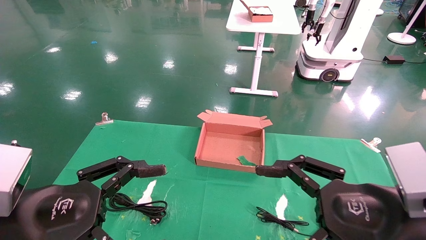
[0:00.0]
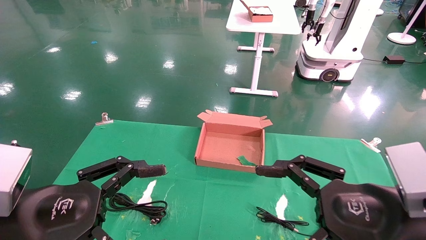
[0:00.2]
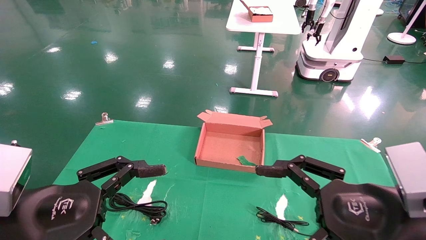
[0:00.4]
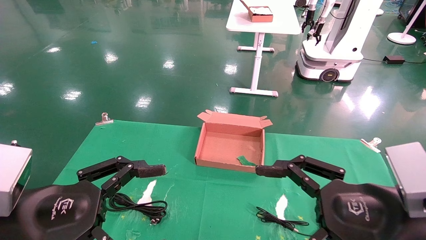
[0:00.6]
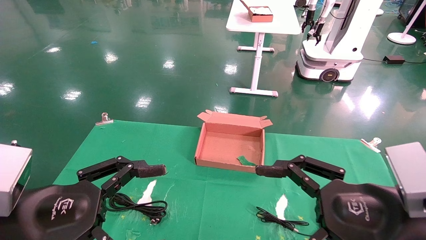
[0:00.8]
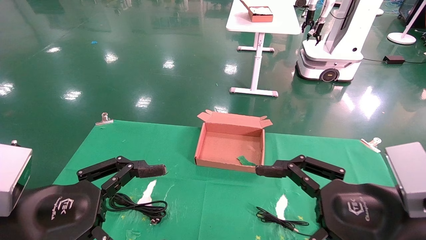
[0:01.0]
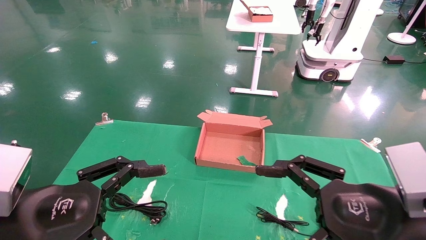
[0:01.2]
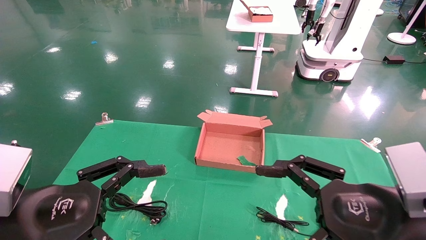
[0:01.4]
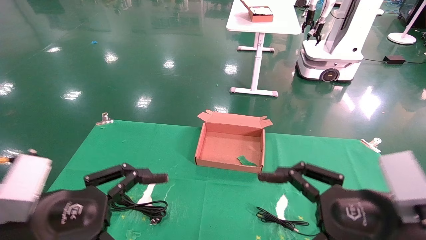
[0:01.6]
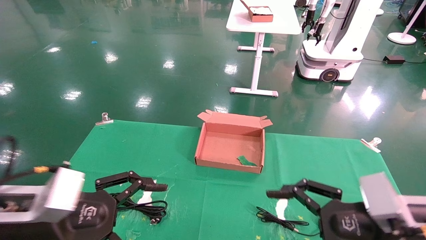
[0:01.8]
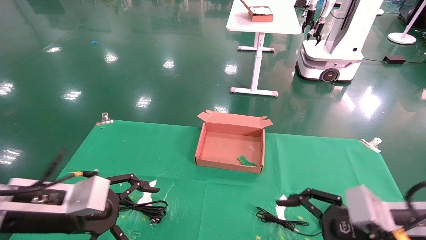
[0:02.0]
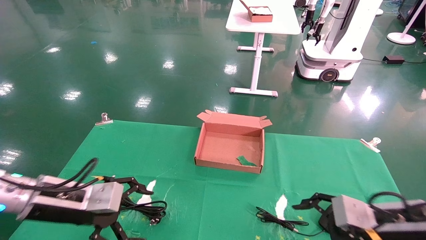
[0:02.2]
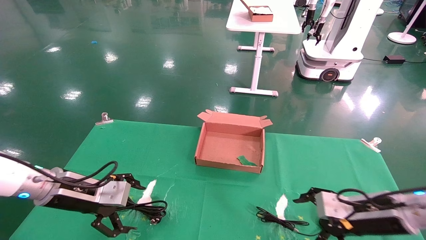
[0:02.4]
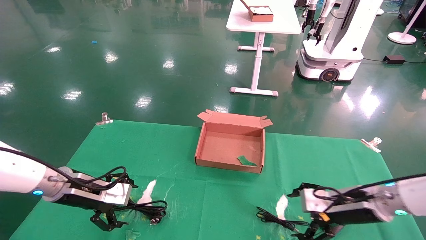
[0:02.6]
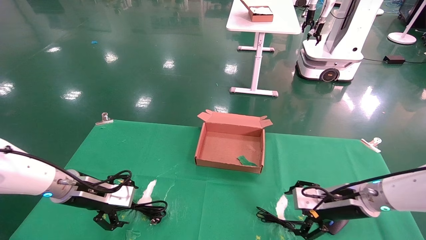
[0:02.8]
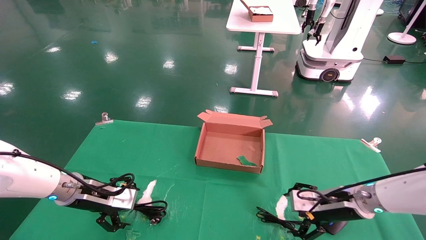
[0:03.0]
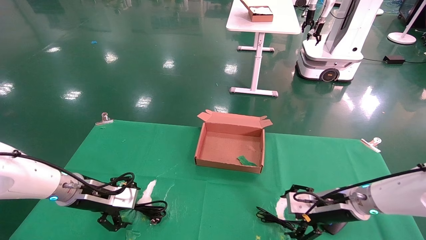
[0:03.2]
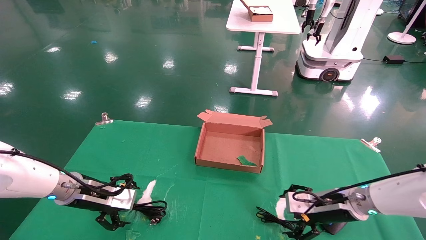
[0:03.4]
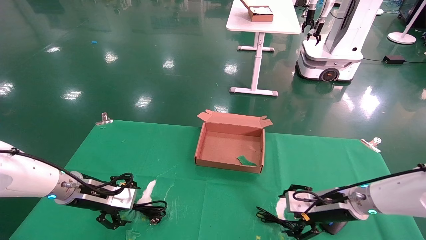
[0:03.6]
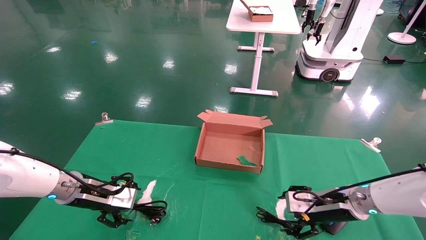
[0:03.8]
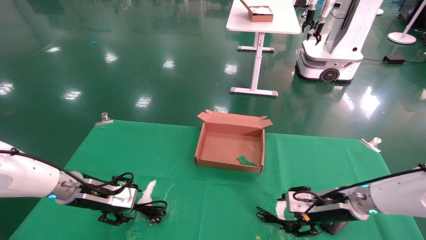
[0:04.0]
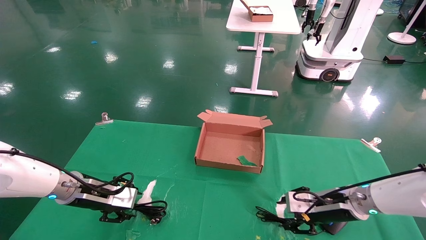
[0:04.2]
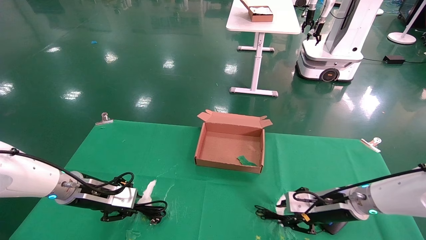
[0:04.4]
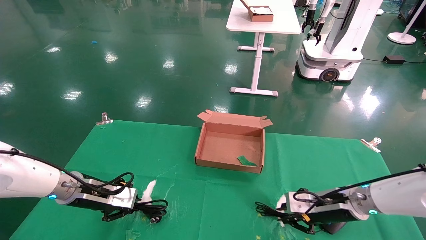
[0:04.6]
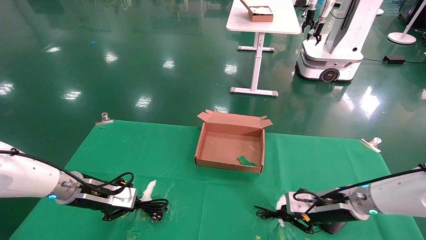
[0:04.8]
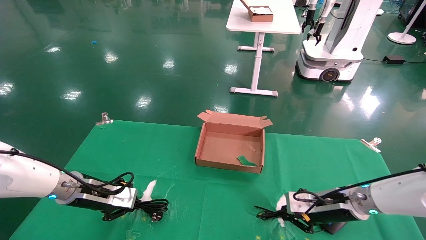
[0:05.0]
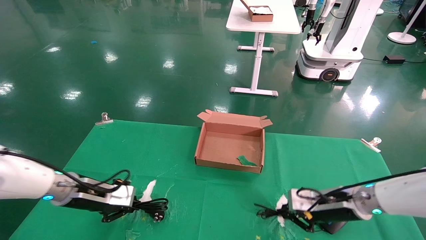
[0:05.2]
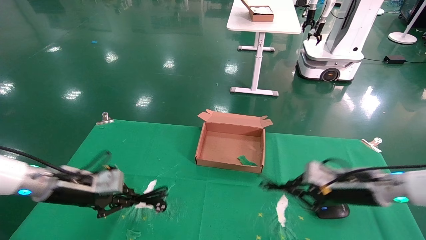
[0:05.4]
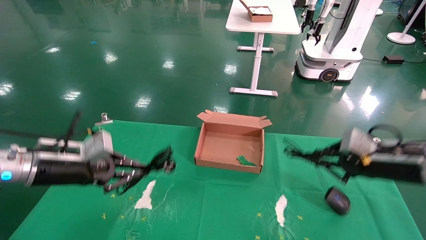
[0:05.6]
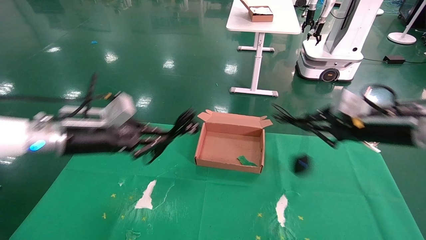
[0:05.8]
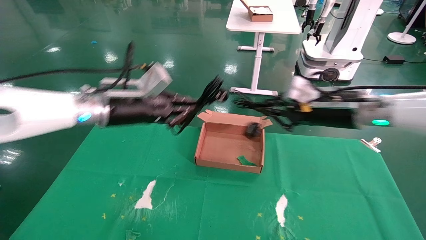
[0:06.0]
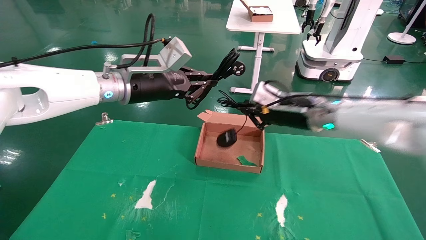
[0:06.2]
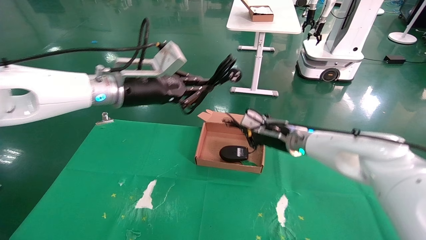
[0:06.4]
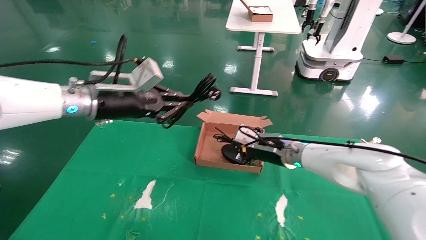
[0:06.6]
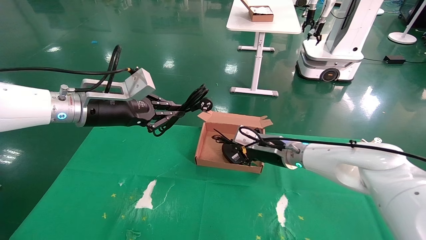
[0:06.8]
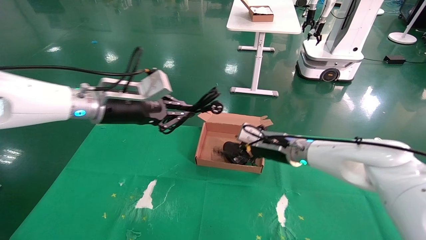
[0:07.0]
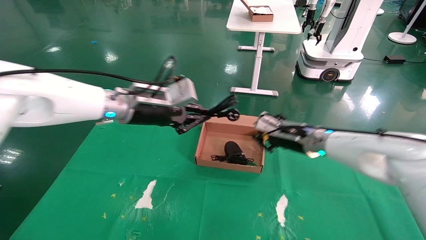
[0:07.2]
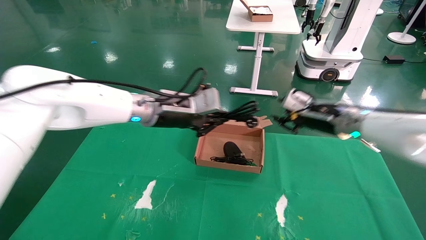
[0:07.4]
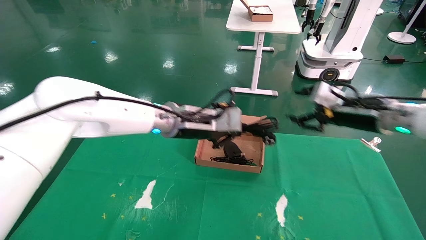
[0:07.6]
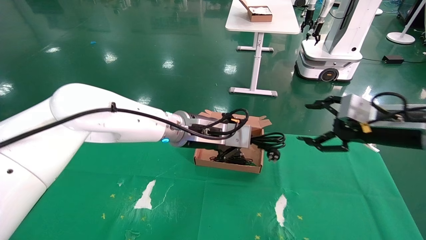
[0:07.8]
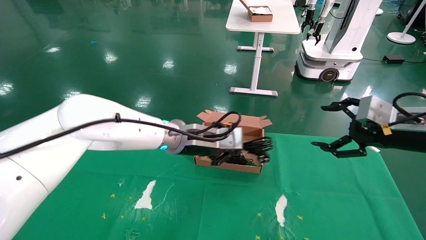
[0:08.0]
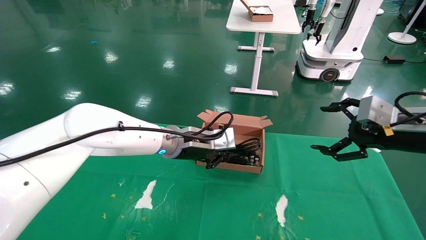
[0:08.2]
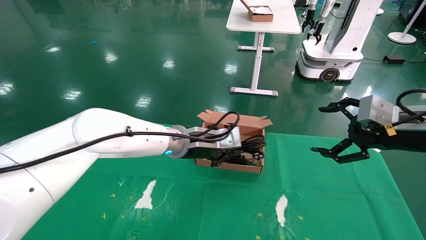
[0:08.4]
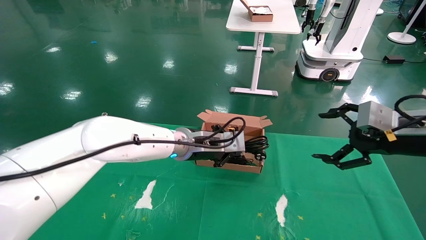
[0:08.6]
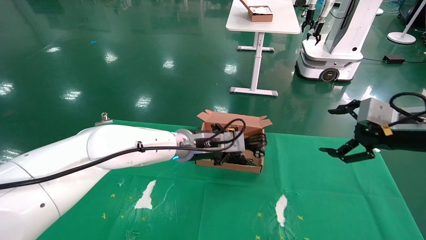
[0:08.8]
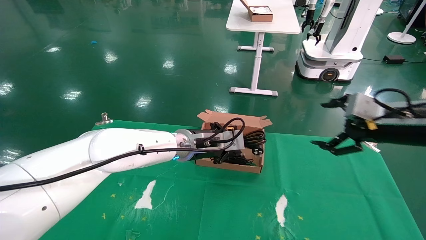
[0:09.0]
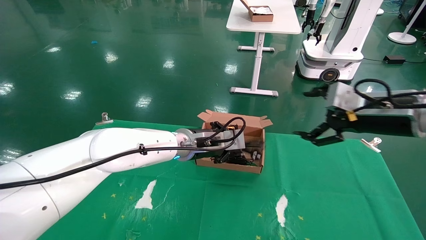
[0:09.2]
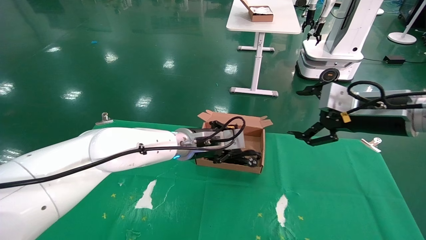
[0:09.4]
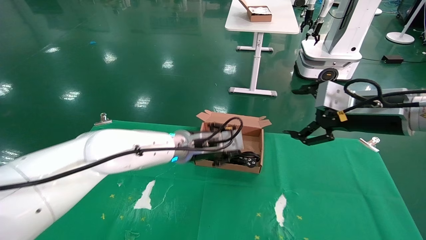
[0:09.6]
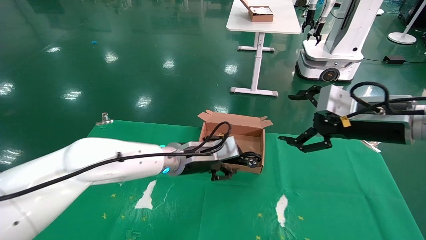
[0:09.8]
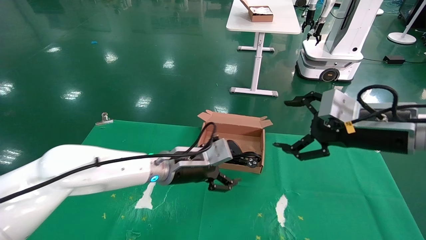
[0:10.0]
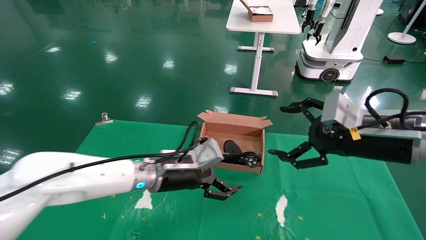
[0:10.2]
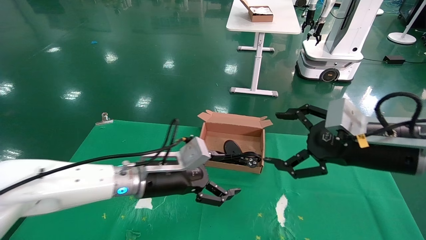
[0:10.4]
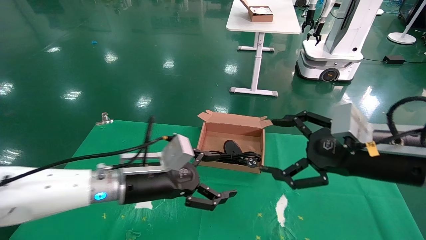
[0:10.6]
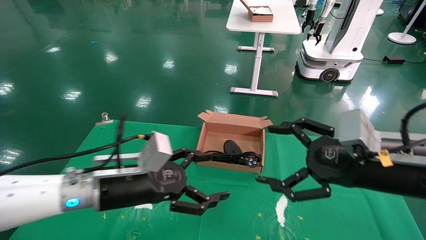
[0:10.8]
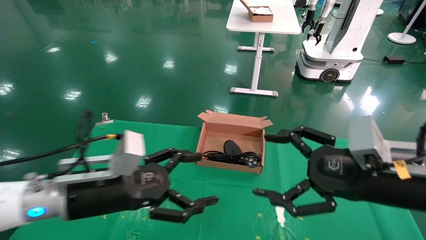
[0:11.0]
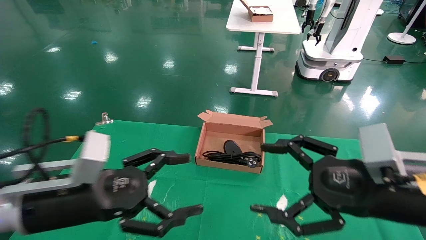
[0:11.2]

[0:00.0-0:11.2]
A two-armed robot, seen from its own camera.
Step, 0:01.6 to 0:04.8: Grab and lift both the mouse and power cord from the accessory packaging area at the same time.
Step, 0:05.0 to 0:09.8: Place the mouse and power cord into the box.
0:00.0 to 0:01.6: The grippers move only a little.
0:01.6 to 0:03.2: The left gripper goes about 20 cm forward. The right gripper travels forward and downward by roughly 25 cm.
0:03.2 to 0:04.8: The left gripper closes its fingers. The right gripper closes up.
0:04.8 to 0:06.4: The right gripper heads upward, to the left and forward, covering about 15 cm; the left gripper goes about 25 cm upward and to the right.
0:06.4 to 0:08.0: The right gripper shifts roughly 25 cm to the right and backward, and opens; the left gripper shifts some 15 cm to the right and downward.
0:08.0 to 0:09.6: The right gripper moves to the left, roughly 5 cm.
0:09.6 to 0:11.2: The left gripper heads backward and to the left, covering roughly 25 cm, and opens up; the right gripper travels backward, downward and to the left by about 15 cm.

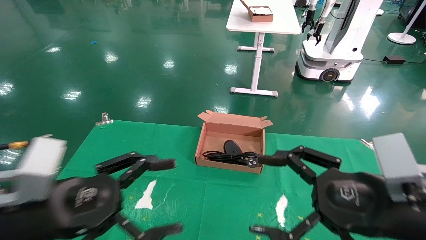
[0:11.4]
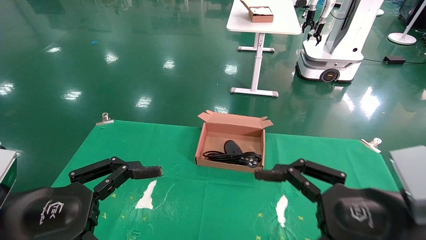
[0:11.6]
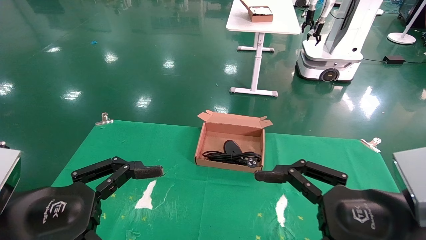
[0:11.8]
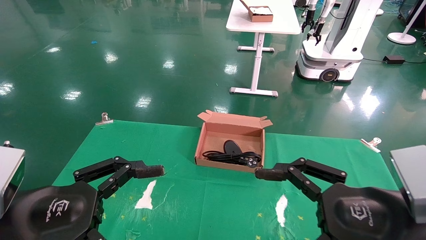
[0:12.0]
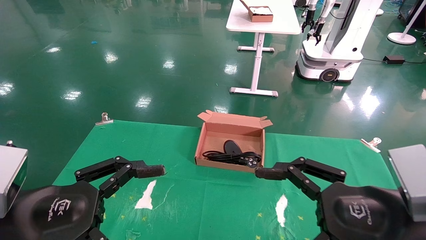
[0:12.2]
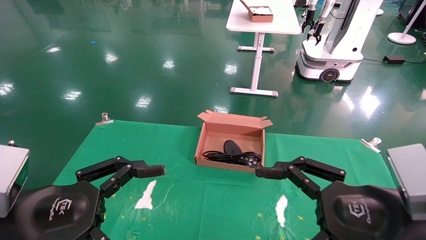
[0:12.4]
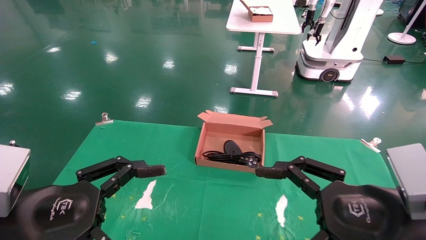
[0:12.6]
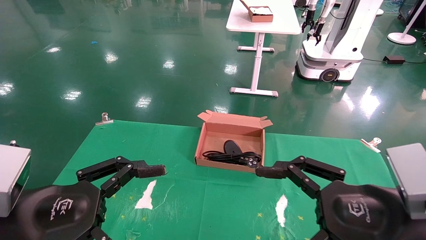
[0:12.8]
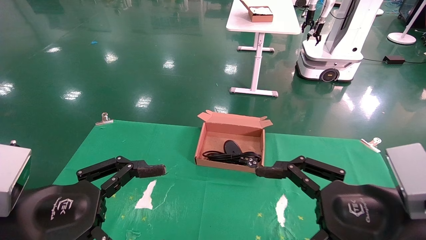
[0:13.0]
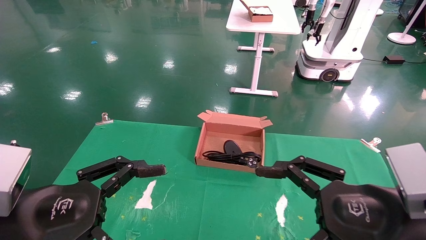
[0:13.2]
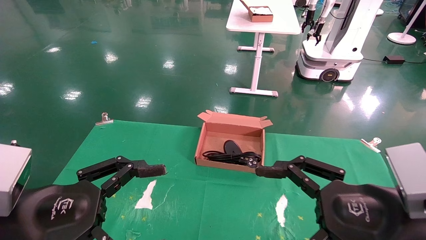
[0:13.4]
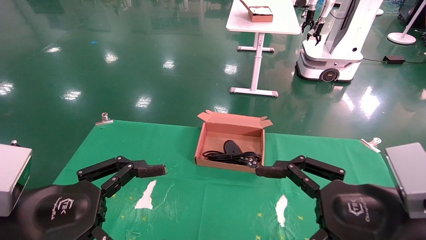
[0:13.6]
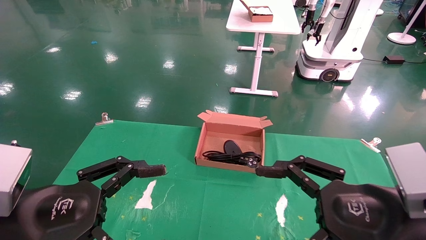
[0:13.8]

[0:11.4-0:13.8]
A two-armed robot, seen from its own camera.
0:11.4 to 0:12.6: The grippers move only a little.
0:12.6 to 0:13.8: Neither gripper changes place.
